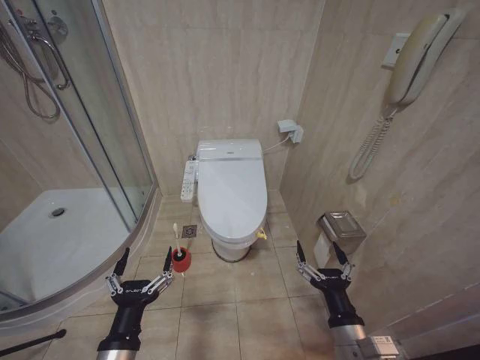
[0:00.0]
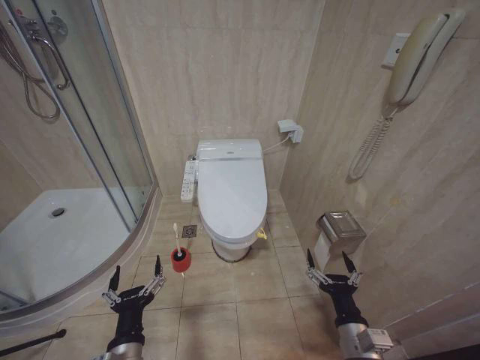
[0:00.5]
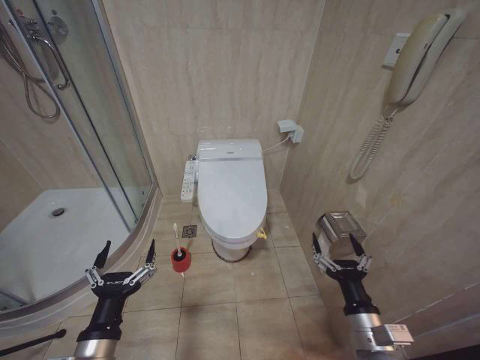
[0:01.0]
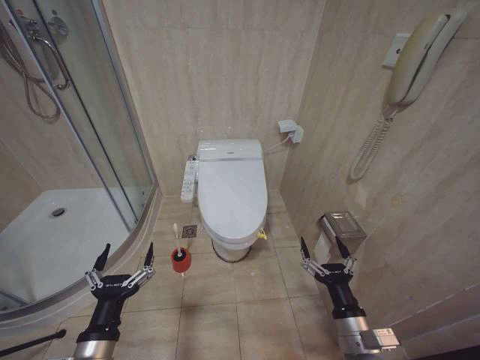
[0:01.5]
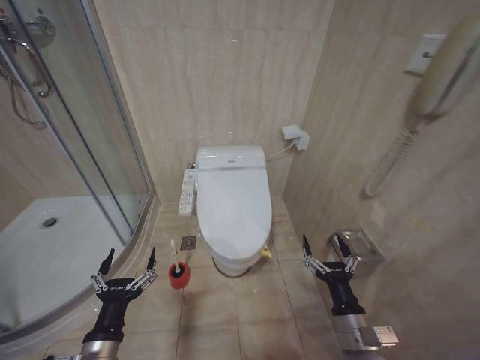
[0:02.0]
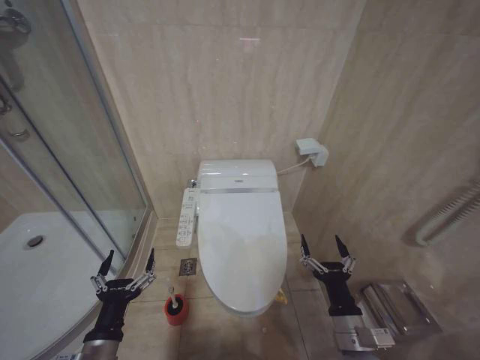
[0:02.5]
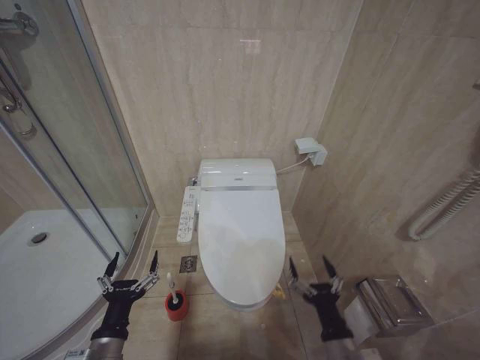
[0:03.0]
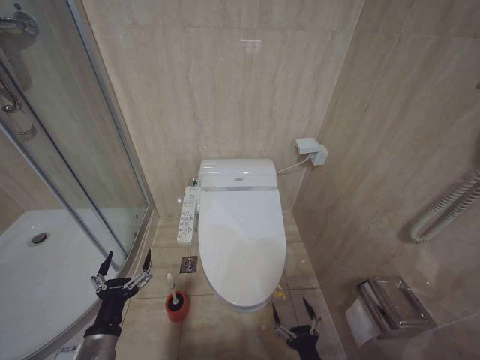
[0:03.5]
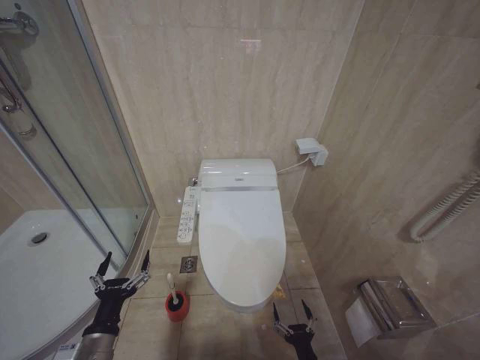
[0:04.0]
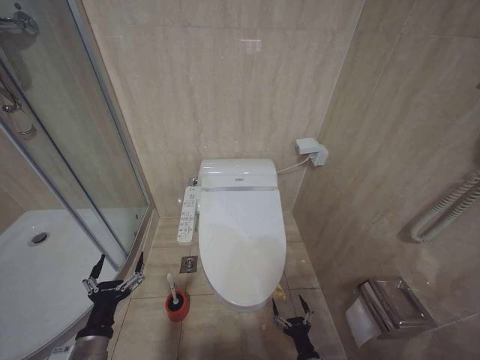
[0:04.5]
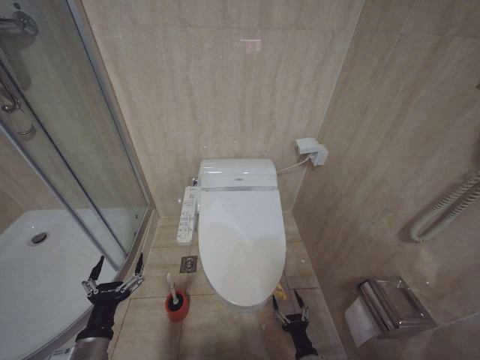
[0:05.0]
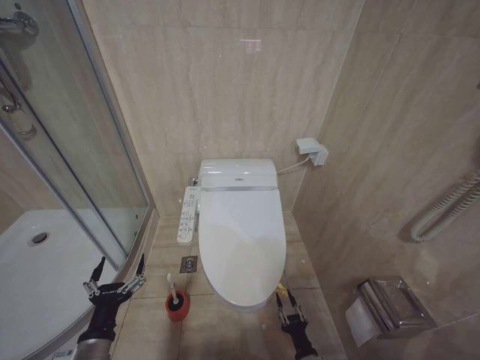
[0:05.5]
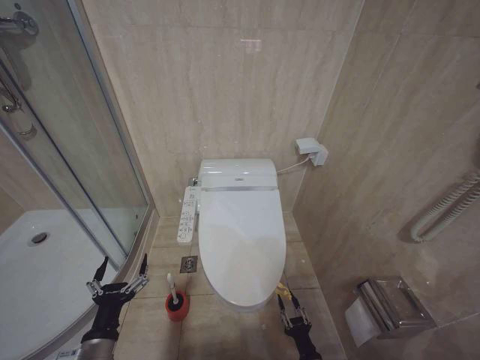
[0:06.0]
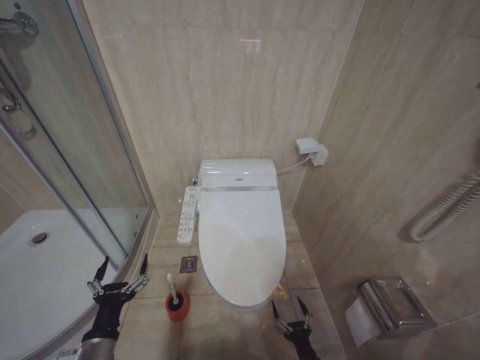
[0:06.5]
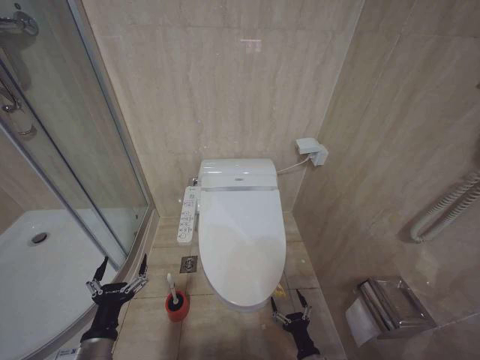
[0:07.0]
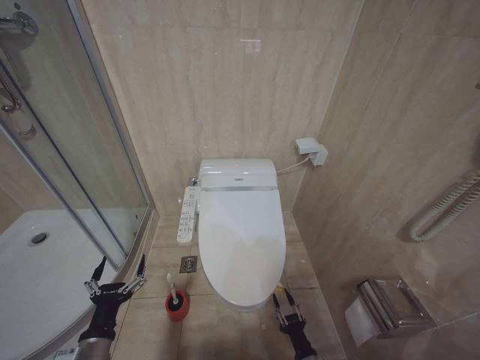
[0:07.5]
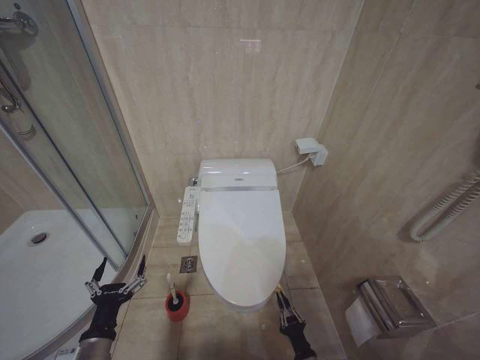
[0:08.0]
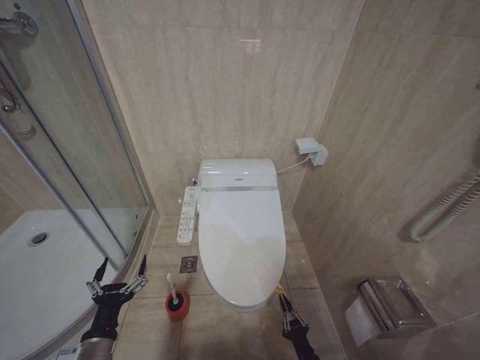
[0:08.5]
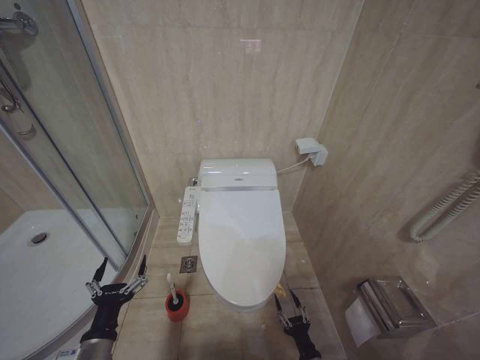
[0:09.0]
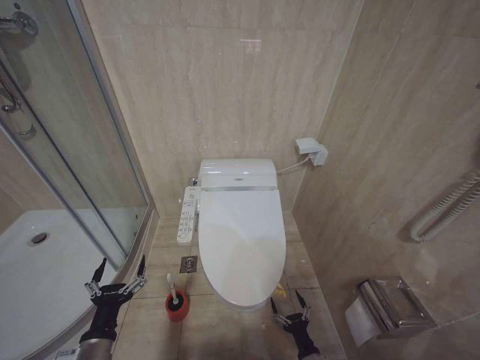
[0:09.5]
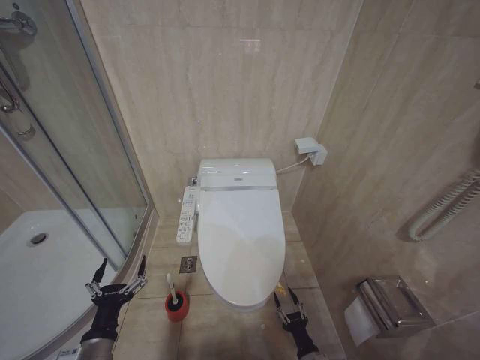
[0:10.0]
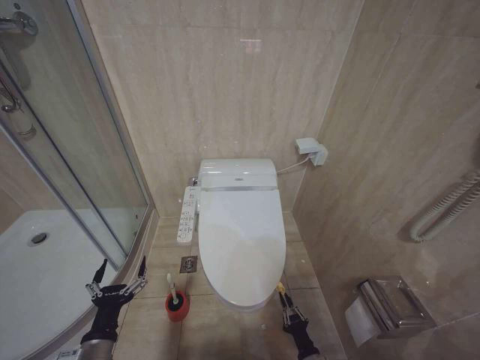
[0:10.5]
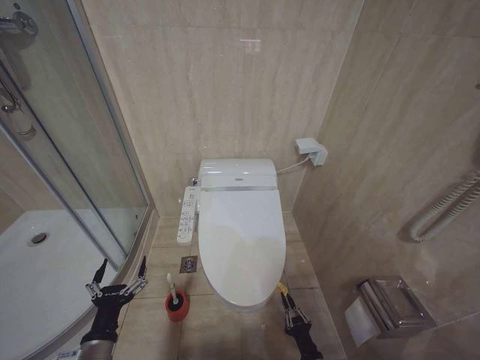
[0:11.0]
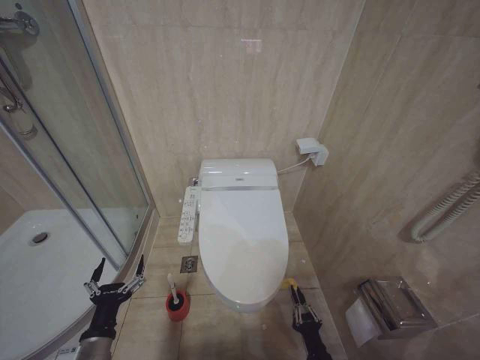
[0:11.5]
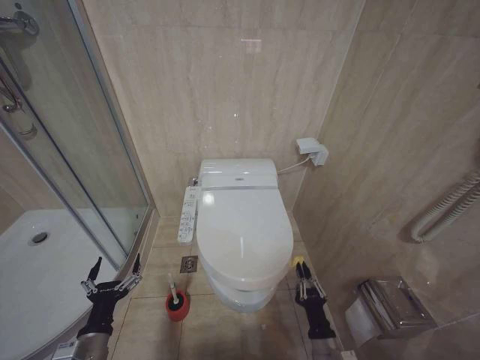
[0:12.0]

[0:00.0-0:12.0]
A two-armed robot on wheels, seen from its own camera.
Task of the whole recording: Open the toilet lid, clean the toilet bowl with a toilet brush, close the toilet lid, and flush.
0:02.0 to 0:04.0: The left gripper changes place by some 5 cm, while the right gripper moves downward, some 20 cm.
0:10.0 to 0:12.0: The right gripper shifts some 10 cm upward, and closes its fingers.

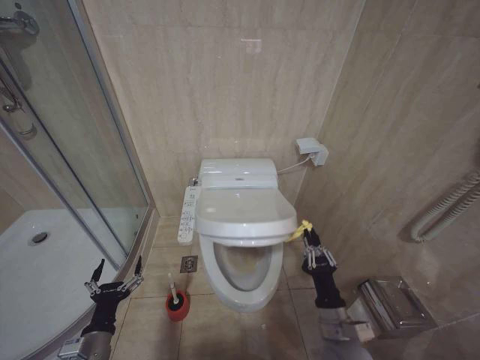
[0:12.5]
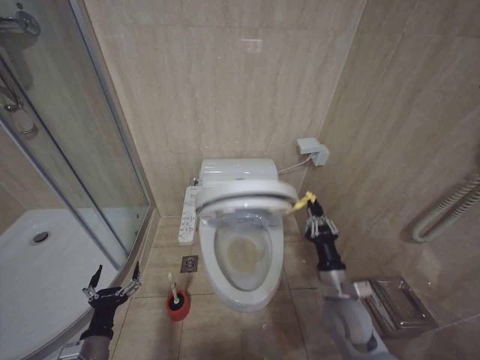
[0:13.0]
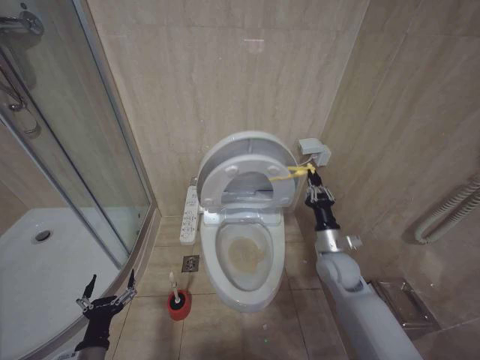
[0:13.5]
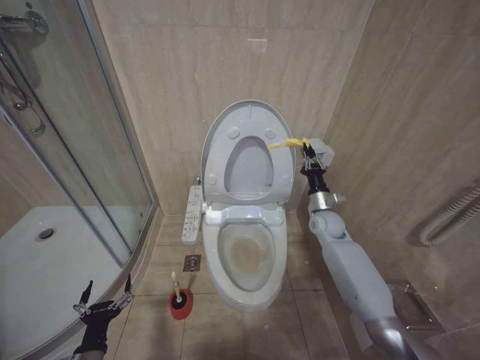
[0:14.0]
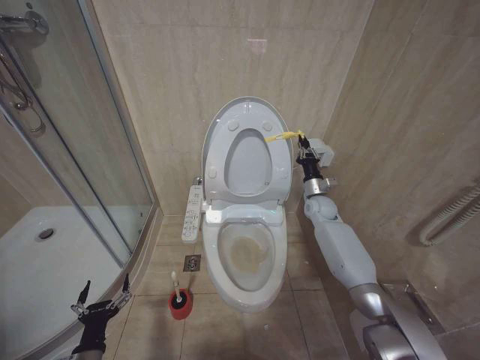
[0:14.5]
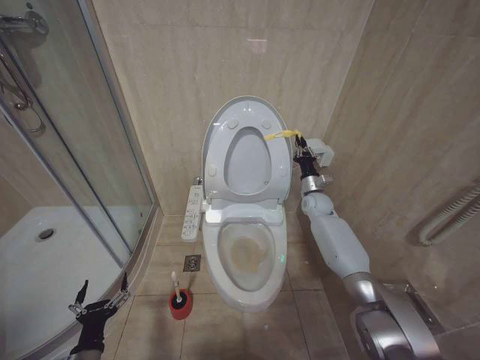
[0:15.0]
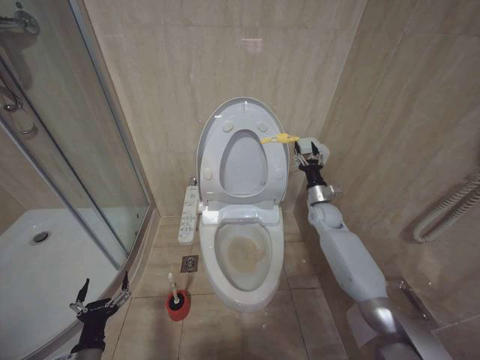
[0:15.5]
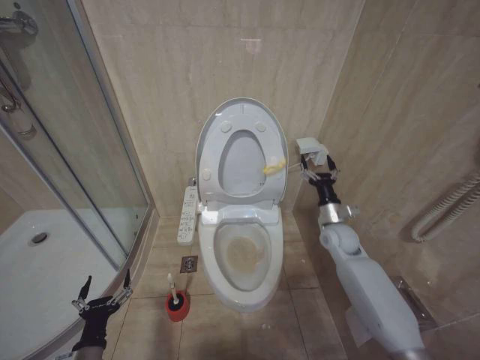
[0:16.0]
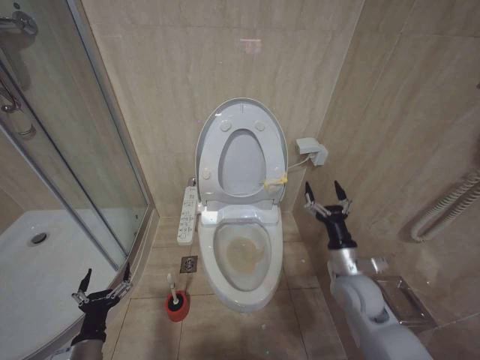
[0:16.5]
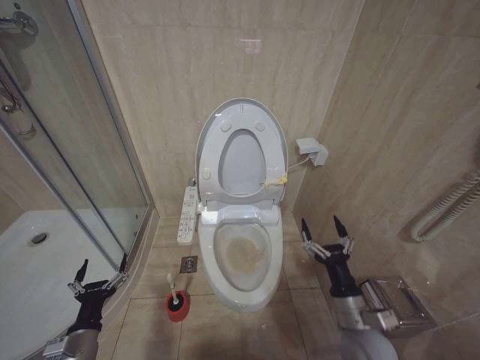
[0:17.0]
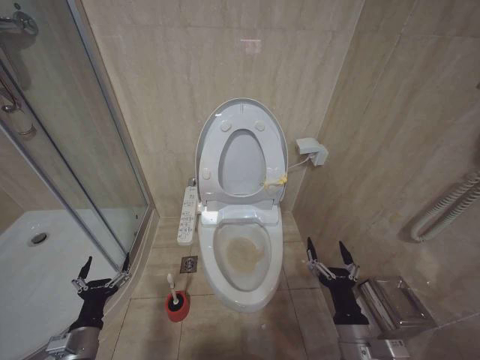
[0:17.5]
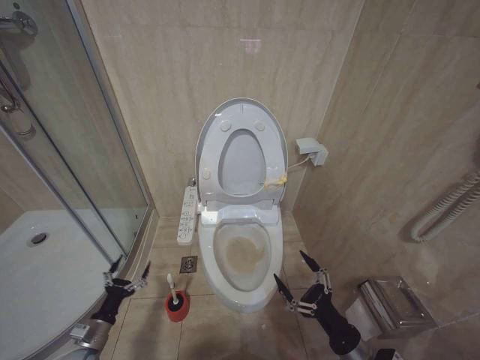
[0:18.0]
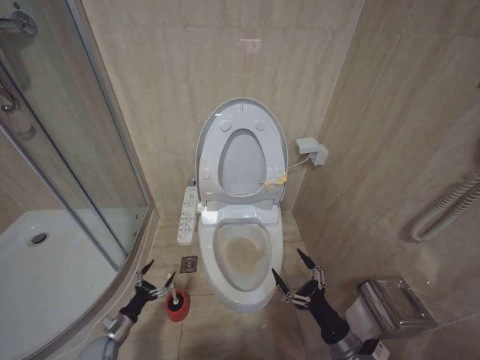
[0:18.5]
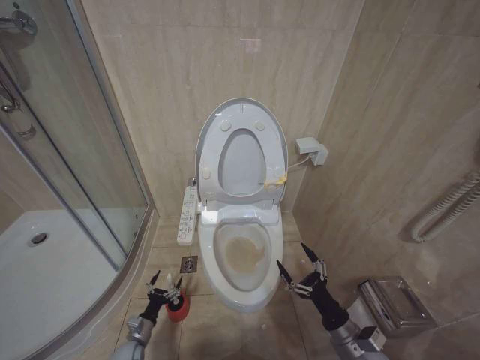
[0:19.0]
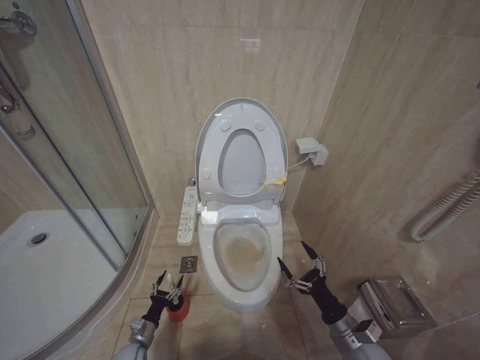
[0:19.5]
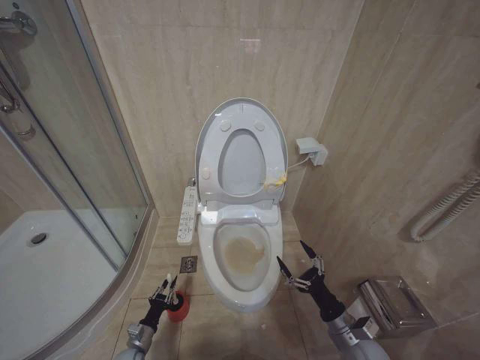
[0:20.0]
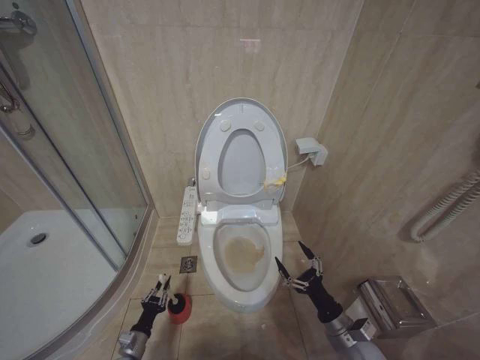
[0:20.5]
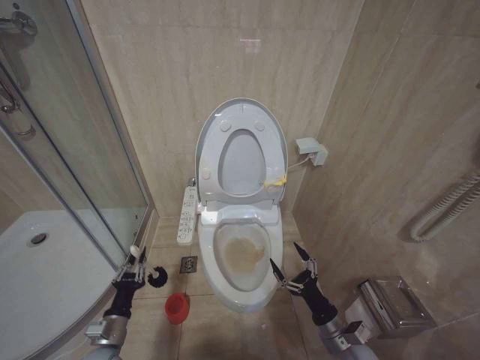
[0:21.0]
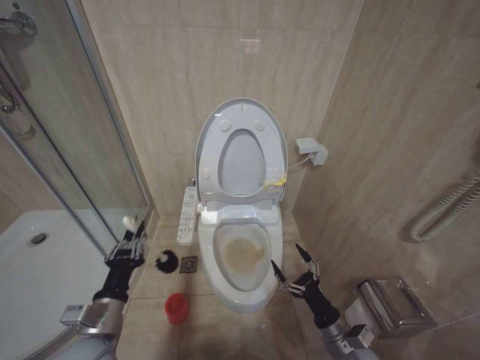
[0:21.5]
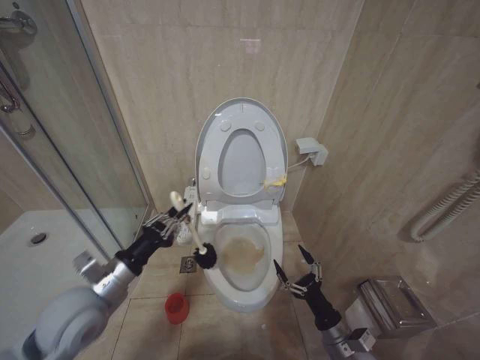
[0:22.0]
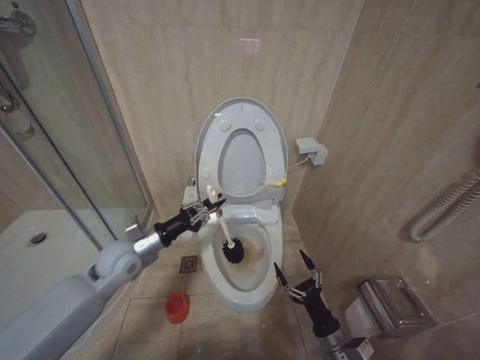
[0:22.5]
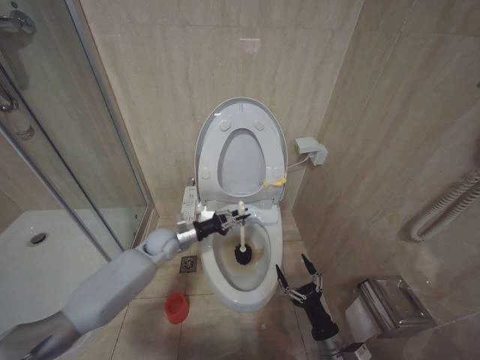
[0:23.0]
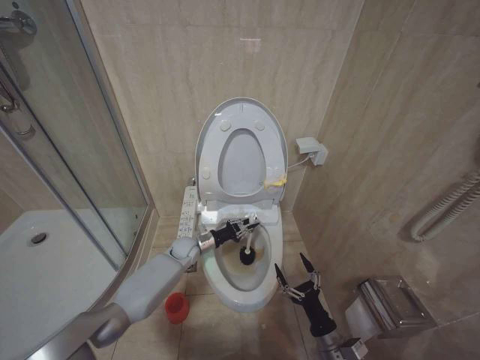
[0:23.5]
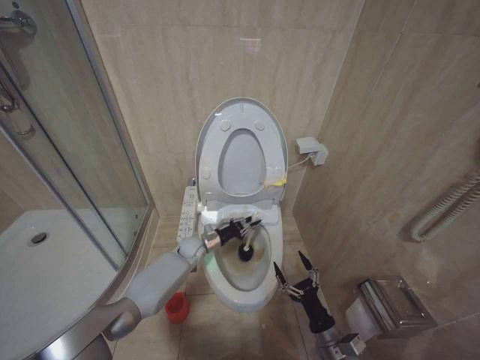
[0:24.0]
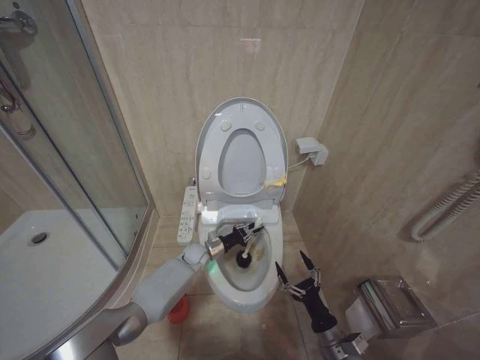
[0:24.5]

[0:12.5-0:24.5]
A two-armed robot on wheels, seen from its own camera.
Task of the whole recording: Open the toilet lid, clean the toilet bowl with a toilet brush, close the toilet lid, and flush.
0:12.5 to 0:14.5: The left gripper moves about 5 cm. Meanwhile the right gripper travels forward by some 35 cm.
0:14.5 to 0:16.5: The right gripper travels backward by approximately 25 cm, and opens up.
0:16.5 to 0:18.5: The left gripper heads downward, forward and to the left, covering some 20 cm. Meanwhile the right gripper heads backward and downward, covering roughly 20 cm.
0:18.5 to 0:20.5: The left gripper goes approximately 5 cm to the right, and closes its fingers. Meanwhile the right gripper shifts by some 5 cm.
0:20.5 to 0:22.5: The left gripper goes about 35 cm upward.
0:22.5 to 0:24.5: The left gripper travels downward, to the right and forward by roughly 30 cm.

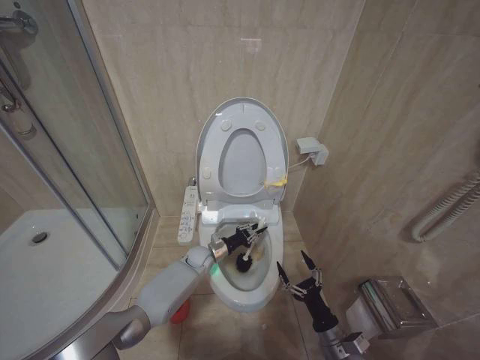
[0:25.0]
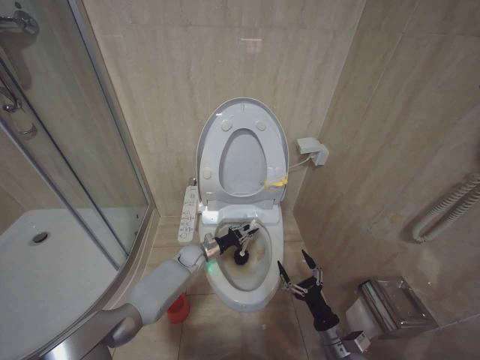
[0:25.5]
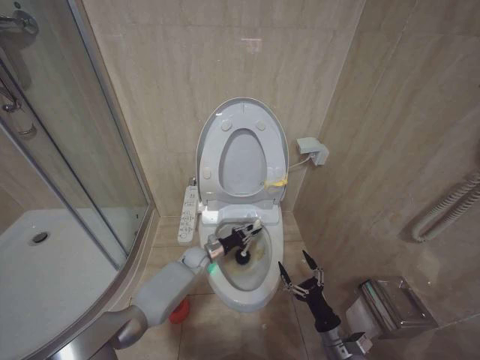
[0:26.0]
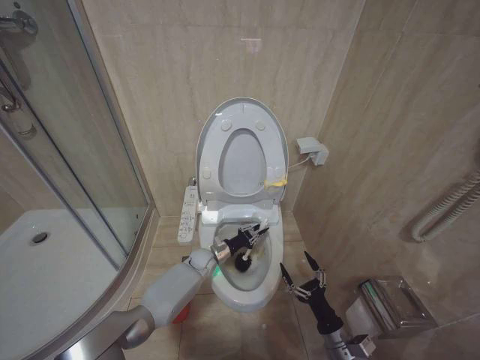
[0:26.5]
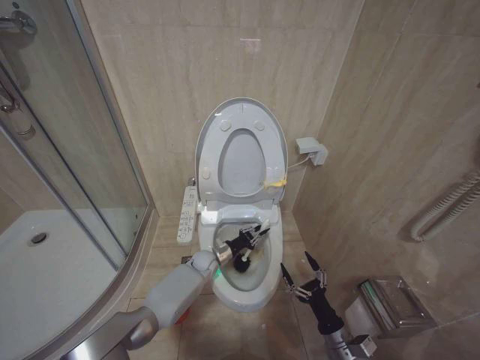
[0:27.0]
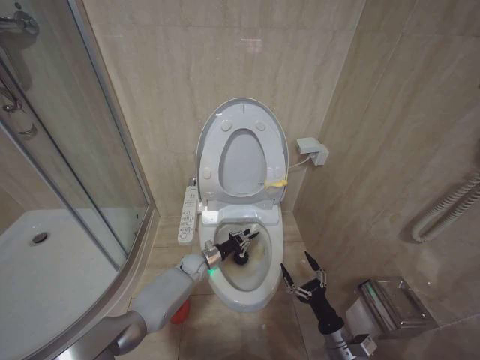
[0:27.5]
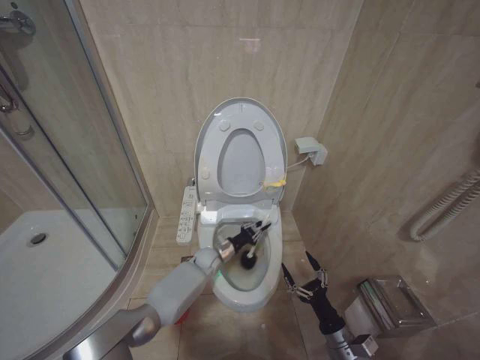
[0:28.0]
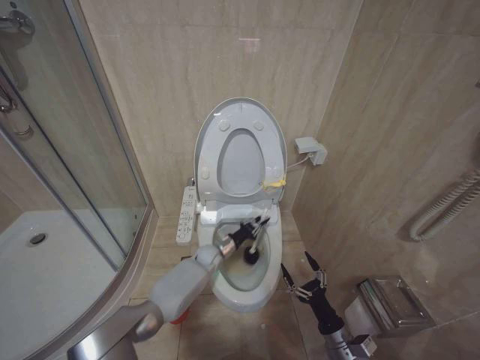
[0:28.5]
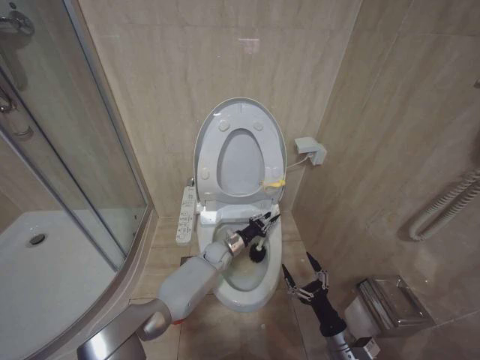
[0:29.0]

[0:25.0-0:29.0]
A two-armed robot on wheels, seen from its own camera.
Task of the whole recording: Open the toilet lid, clean the toilet bowl with a toilet brush, close the toilet lid, and flush.
0:25.0 to 0:27.0: The grippers make only small movements.
0:27.0 to 0:29.0: The left gripper changes place by roughly 5 cm.
